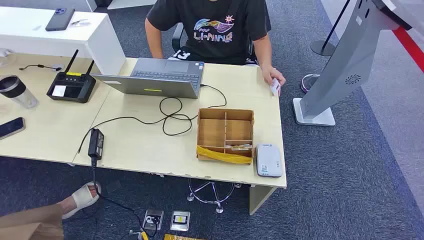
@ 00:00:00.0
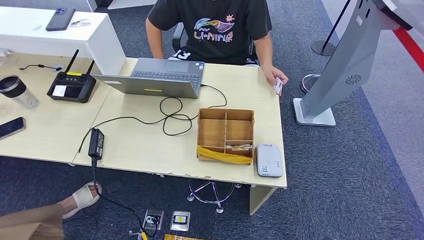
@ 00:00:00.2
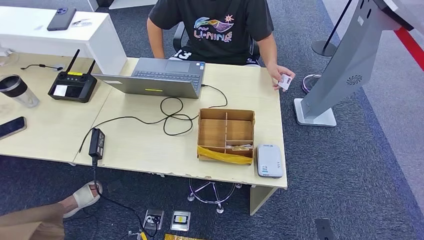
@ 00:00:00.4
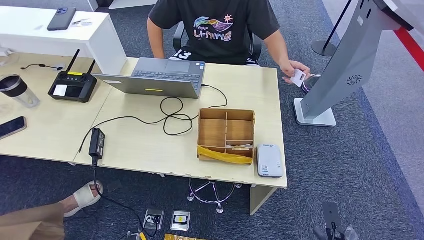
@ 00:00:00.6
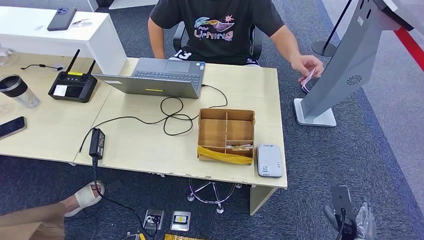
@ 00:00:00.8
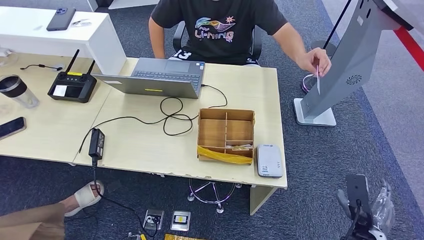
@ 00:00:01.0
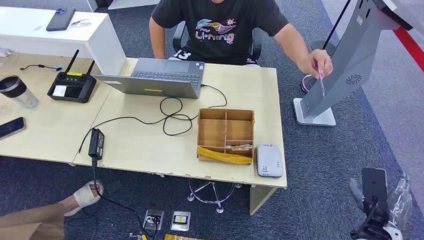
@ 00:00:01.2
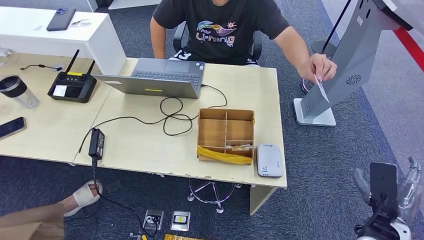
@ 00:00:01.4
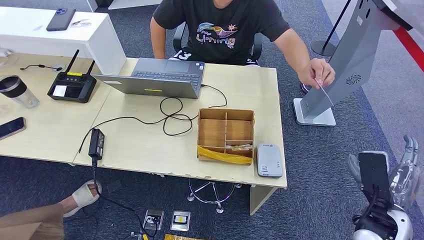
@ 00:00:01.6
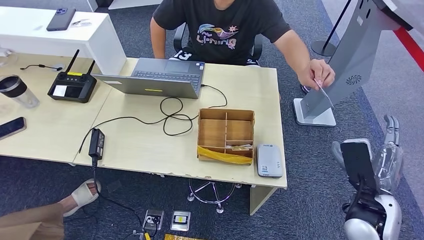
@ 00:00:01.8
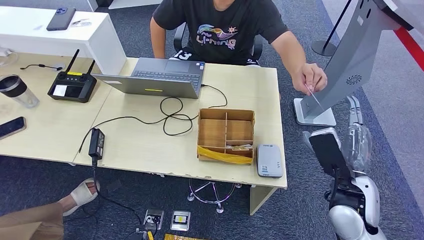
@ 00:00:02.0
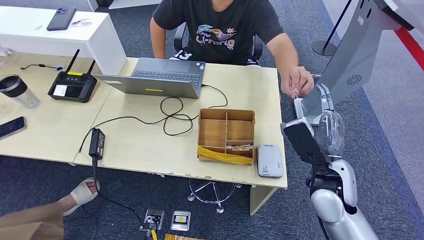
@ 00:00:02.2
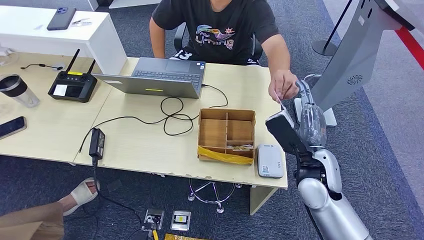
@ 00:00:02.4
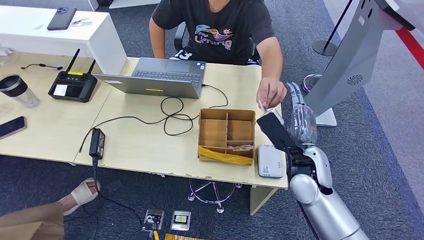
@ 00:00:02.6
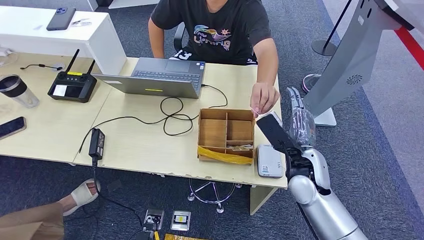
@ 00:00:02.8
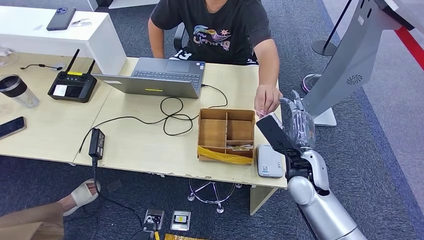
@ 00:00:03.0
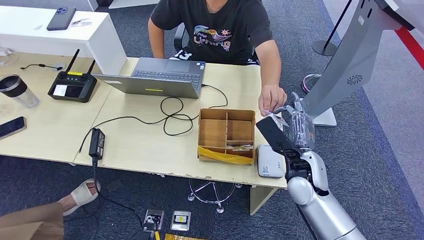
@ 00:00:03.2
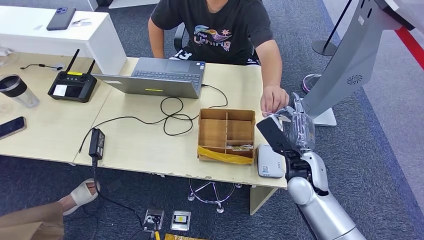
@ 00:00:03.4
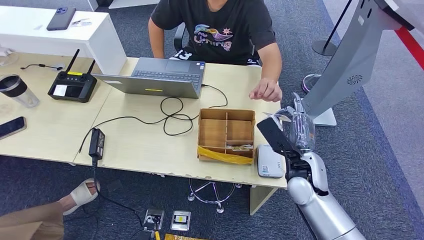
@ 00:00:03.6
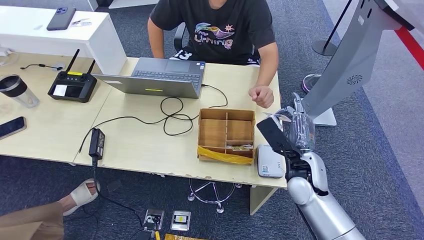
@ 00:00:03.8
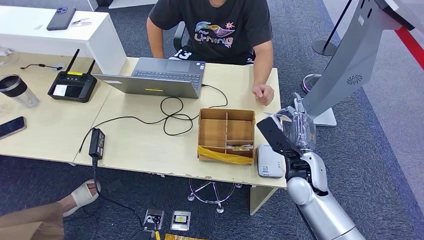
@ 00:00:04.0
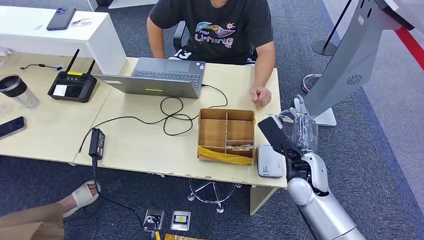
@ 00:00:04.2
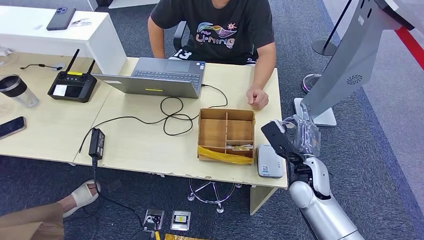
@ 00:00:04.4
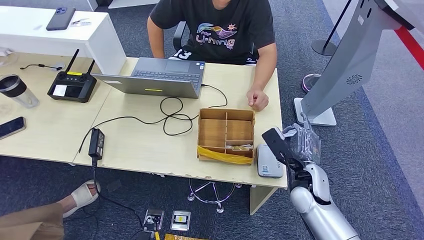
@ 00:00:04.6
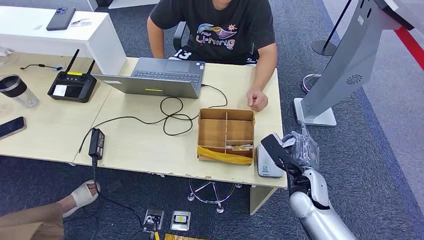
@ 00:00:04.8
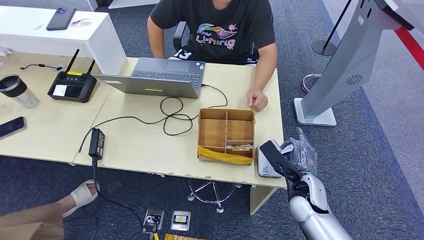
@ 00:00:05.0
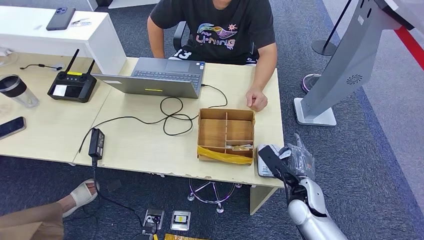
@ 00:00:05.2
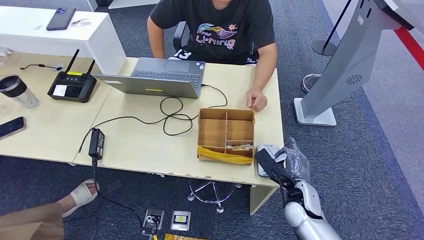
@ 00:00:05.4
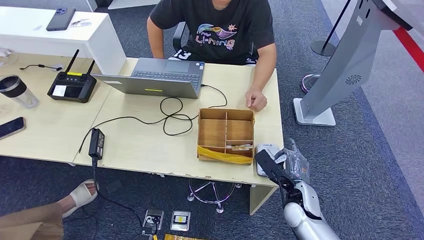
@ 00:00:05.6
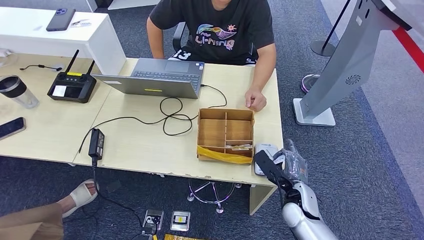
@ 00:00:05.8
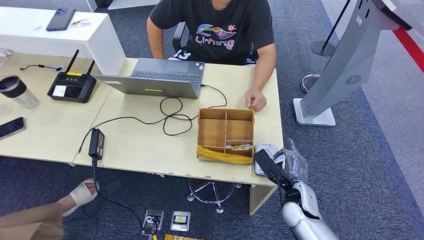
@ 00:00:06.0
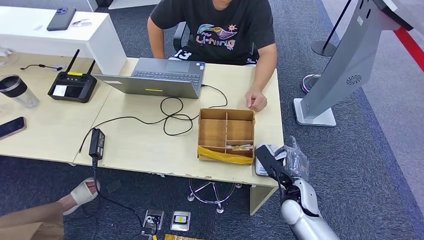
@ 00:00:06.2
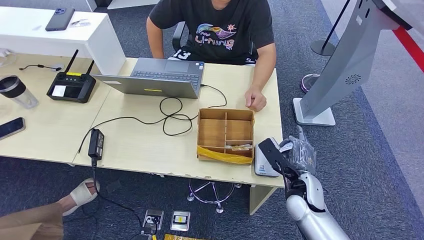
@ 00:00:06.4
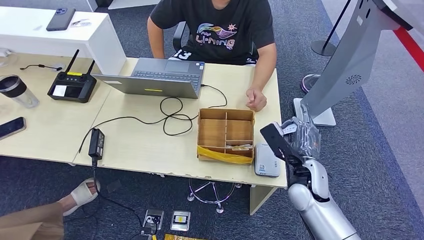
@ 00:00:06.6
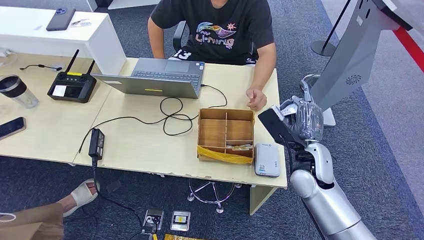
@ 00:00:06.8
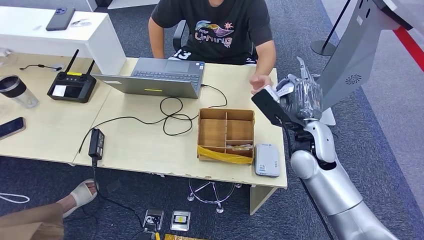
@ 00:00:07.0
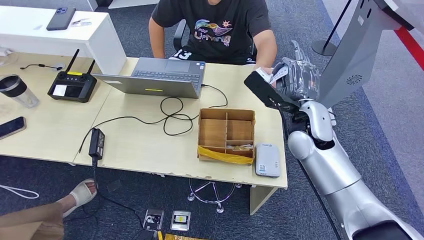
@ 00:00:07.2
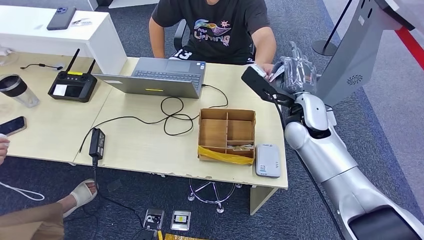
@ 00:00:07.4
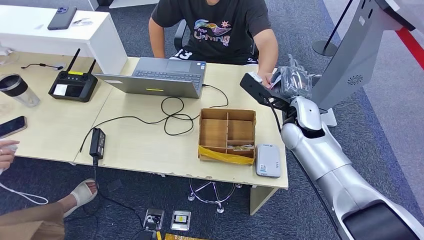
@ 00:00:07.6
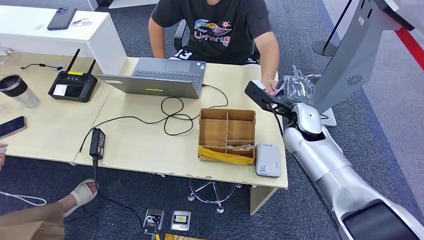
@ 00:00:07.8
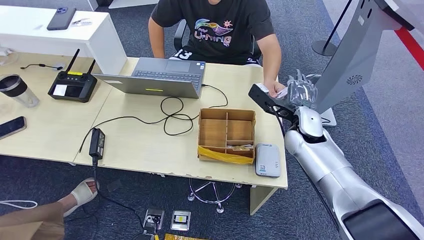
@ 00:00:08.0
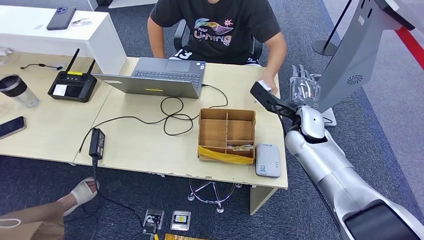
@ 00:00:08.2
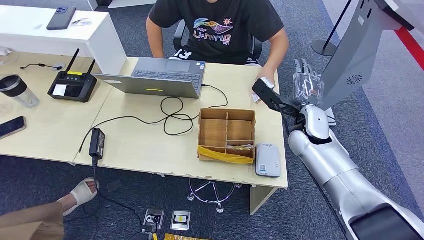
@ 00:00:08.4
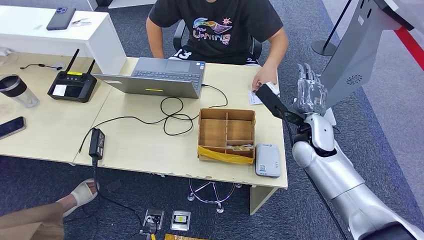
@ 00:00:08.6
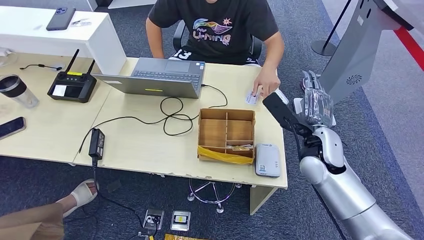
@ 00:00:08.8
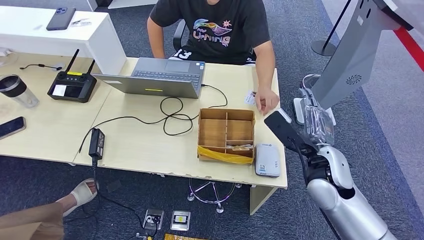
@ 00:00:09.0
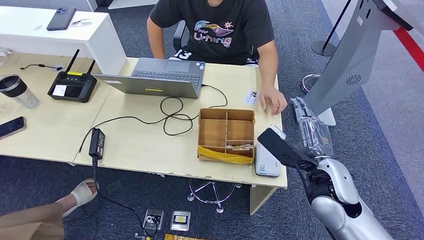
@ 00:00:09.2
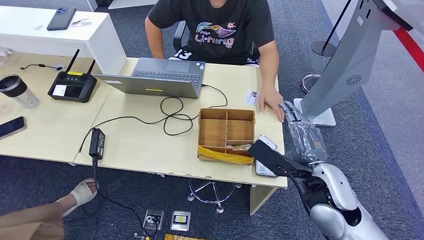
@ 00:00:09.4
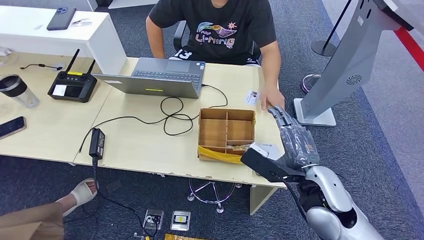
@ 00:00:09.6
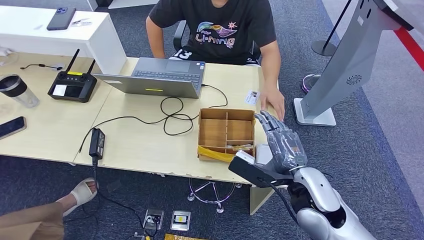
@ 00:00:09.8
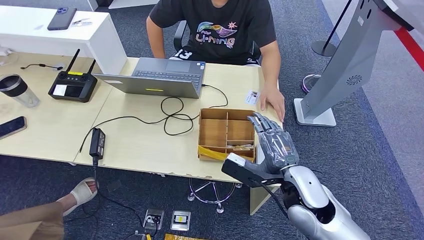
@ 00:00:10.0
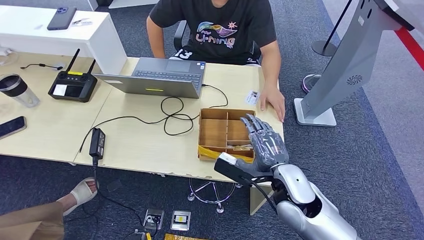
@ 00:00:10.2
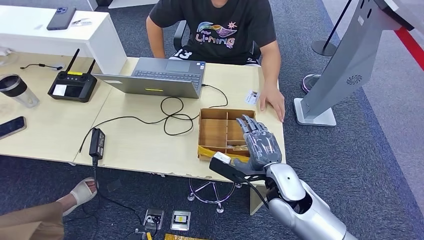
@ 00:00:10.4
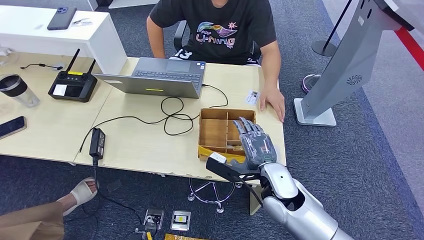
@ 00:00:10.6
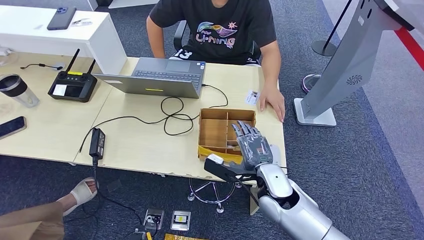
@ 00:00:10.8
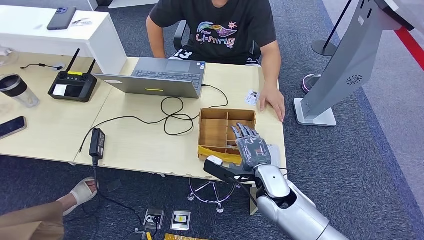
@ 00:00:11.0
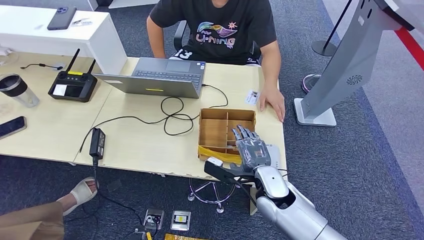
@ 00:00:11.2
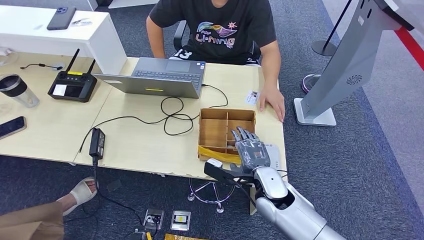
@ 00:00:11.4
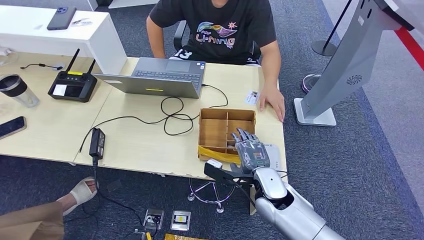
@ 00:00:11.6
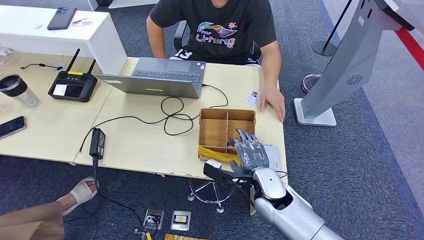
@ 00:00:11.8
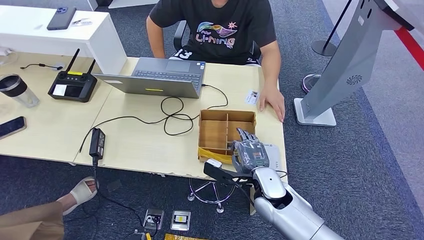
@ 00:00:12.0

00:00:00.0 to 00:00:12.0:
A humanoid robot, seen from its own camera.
Step, 00:00:00.0 to 00:00:03.4: Take the ID card from the person's hand.
Step, 00:00:03.8 to 00:00:06.4: Place the ID card on the card reader.
Step, 00:00:06.6 to 00:00:09.4: Hand the ID card to the person.
00:00:01.6 to 00:00:03.0: The right hand travels to the left and forward by some 20 cm.
00:00:03.0 to 00:00:04.4: The hands make only small movements.
00:00:04.4 to 00:00:06.0: The right hand goes approximately 10 cm downward.
00:00:07.6 to 00:00:09.0: The right hand is displaced backward and to the right by approximately 10 cm.
00:00:09.0 to 00:00:10.4: The right hand shifts roughly 10 cm to the left.
00:00:10.4 to 00:00:12.0: The right hand is displaced downward by about 5 cm.

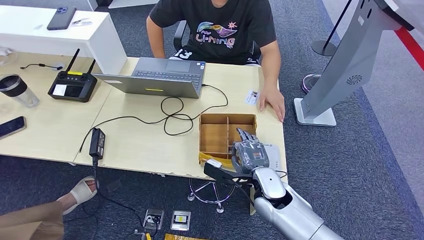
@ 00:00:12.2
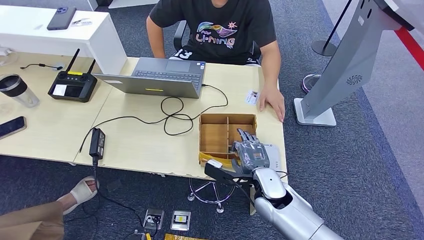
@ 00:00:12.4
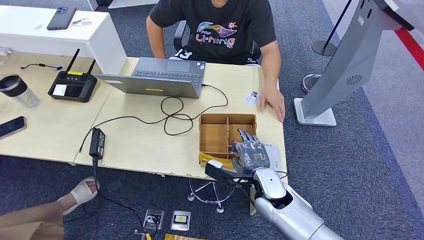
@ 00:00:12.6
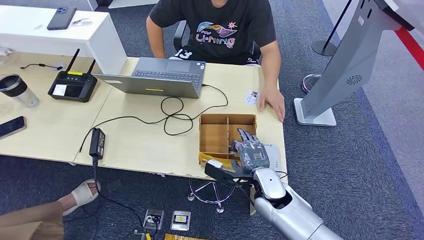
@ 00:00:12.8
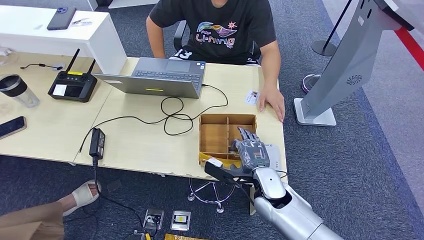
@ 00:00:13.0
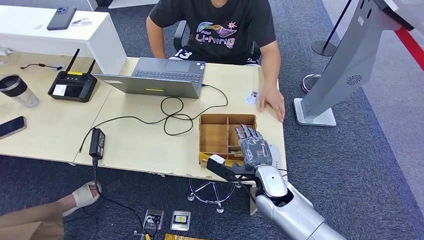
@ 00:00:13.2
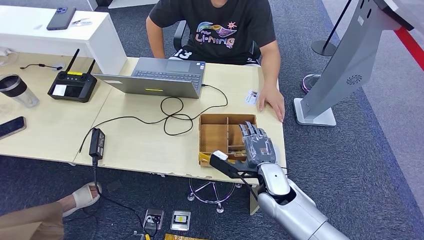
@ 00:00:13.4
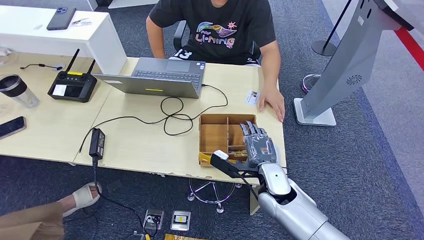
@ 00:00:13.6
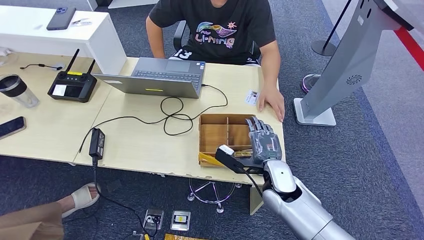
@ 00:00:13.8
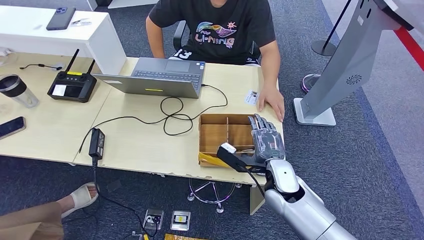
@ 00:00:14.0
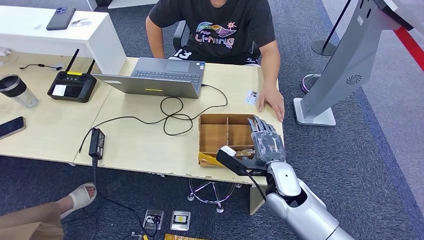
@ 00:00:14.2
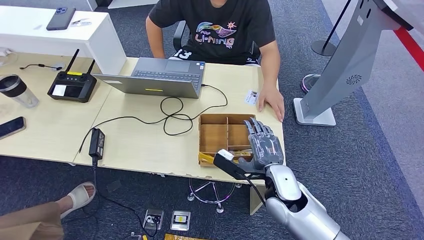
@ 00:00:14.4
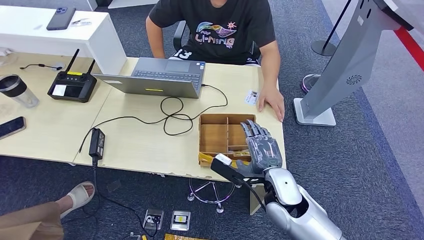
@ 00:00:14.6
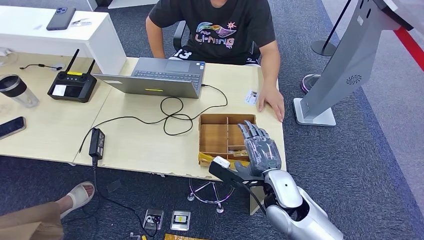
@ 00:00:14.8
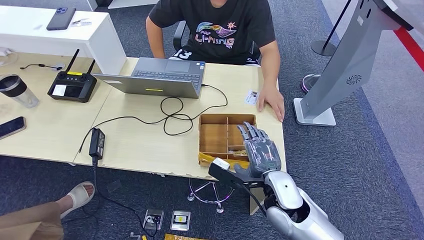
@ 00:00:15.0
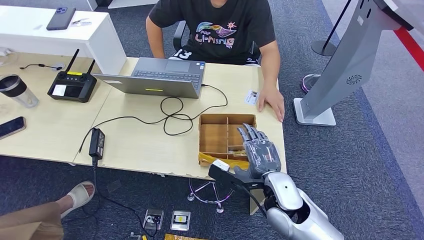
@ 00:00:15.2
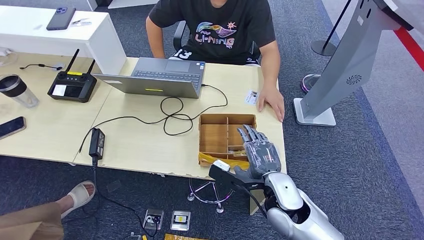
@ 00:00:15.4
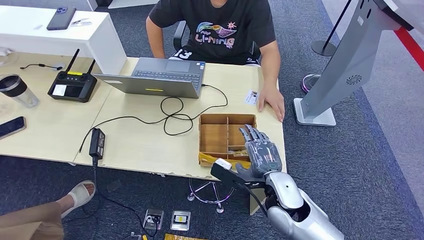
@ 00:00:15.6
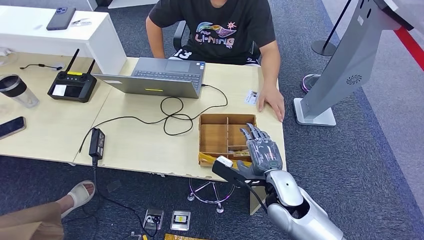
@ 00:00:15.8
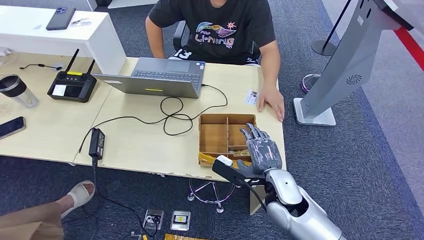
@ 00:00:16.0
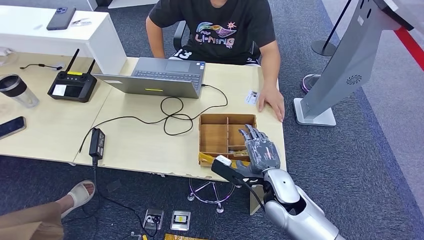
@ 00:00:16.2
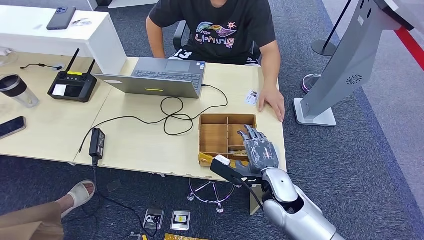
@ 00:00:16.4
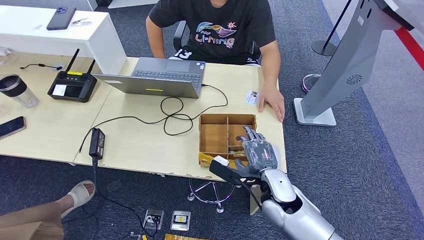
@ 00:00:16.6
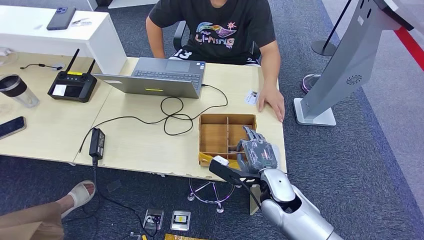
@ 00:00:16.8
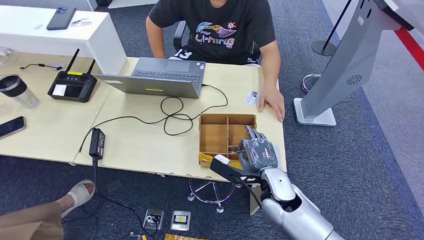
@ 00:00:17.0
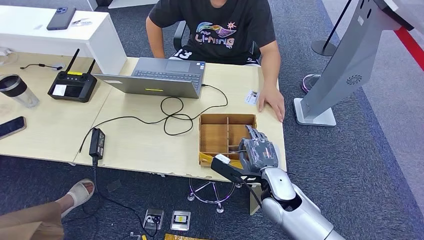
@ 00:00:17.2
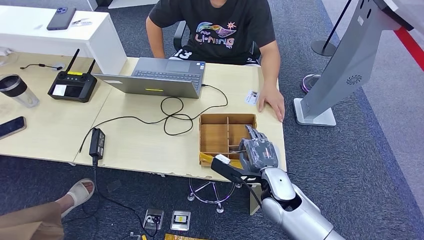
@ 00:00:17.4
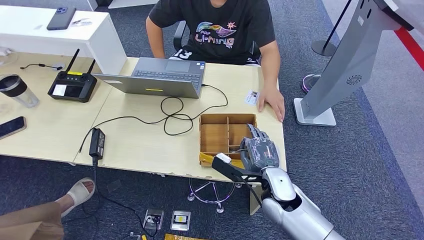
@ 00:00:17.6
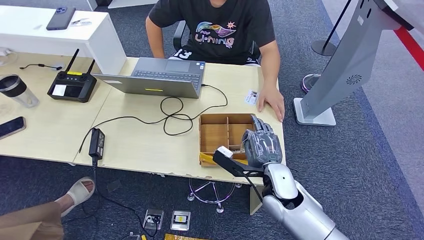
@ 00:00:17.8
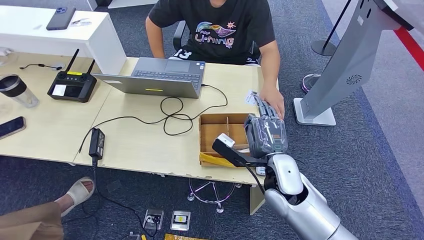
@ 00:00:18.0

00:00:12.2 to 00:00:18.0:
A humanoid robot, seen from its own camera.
Step, 00:00:12.2 to 00:00:17.0: Pick up the room key from the key card box.
00:00:12.2 to 00:00:13.6: There are only small adjustments of the hands.
00:00:13.6 to 00:00:15.0: The right hand shifts by about 5 cm.
00:00:15.0 to 00:00:16.6: There are only small adjustments of the hands.
00:00:16.6 to 00:00:18.0: The right hand moves about 5 cm.
